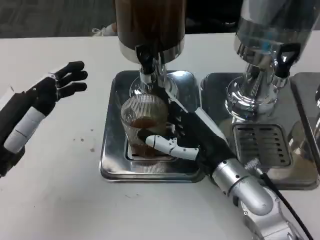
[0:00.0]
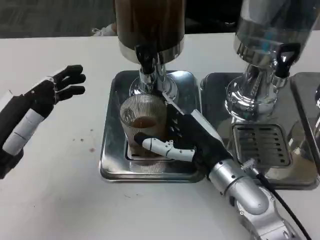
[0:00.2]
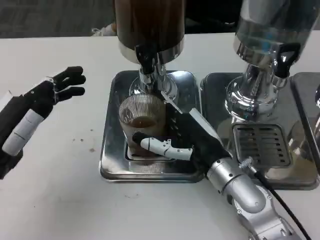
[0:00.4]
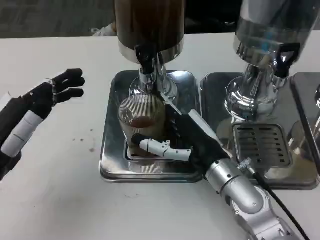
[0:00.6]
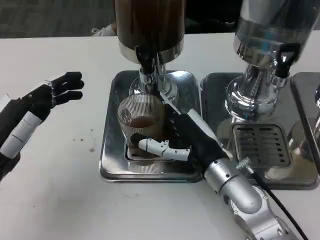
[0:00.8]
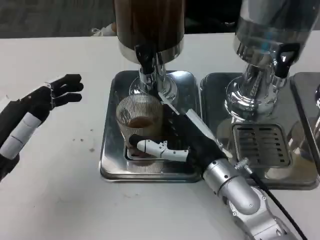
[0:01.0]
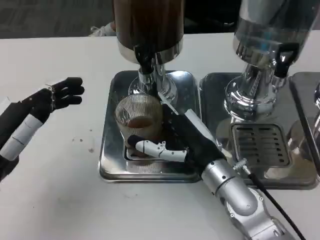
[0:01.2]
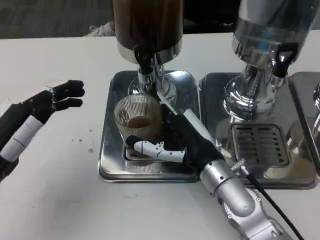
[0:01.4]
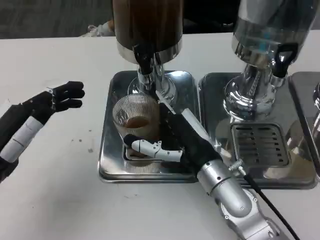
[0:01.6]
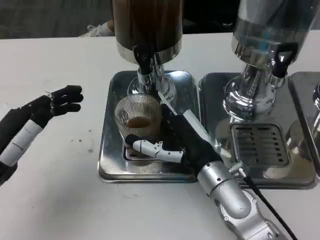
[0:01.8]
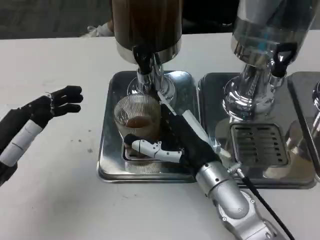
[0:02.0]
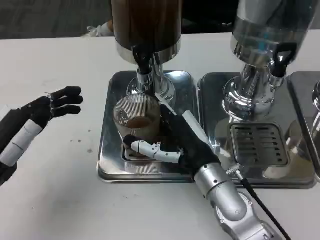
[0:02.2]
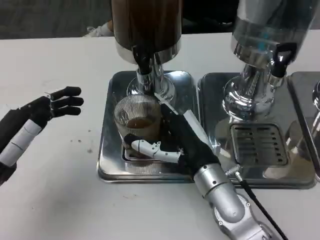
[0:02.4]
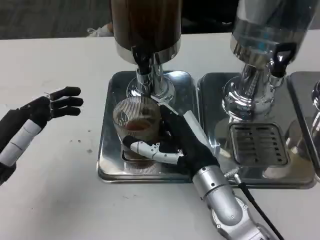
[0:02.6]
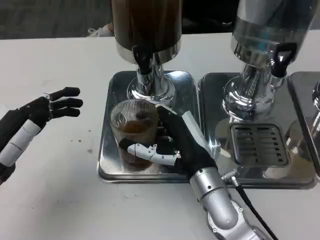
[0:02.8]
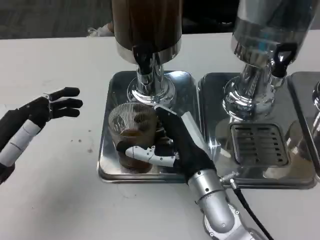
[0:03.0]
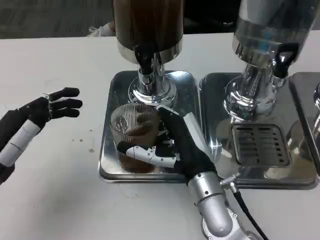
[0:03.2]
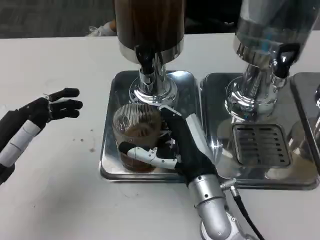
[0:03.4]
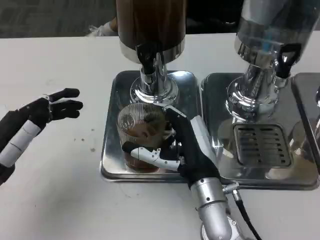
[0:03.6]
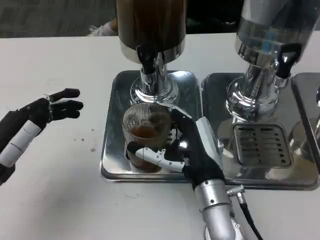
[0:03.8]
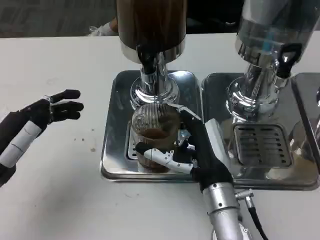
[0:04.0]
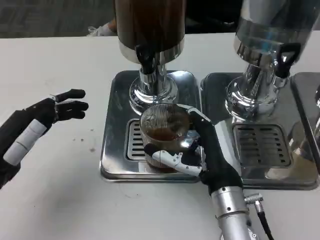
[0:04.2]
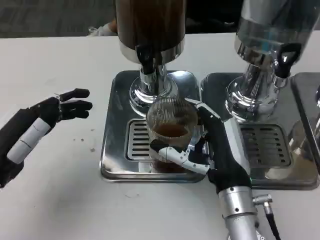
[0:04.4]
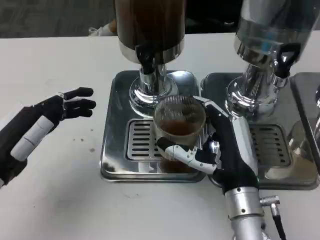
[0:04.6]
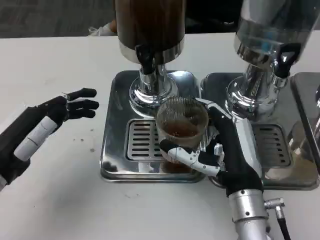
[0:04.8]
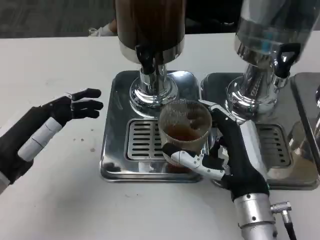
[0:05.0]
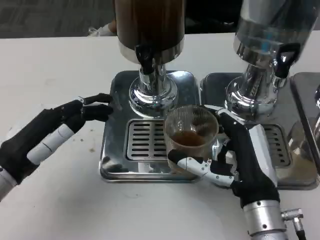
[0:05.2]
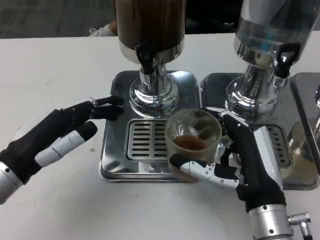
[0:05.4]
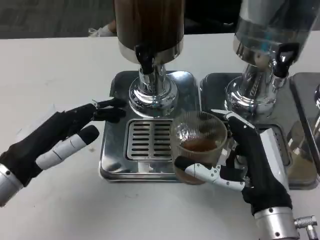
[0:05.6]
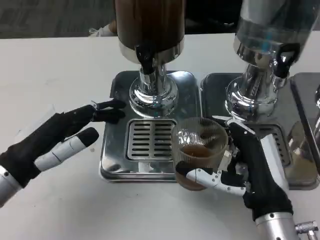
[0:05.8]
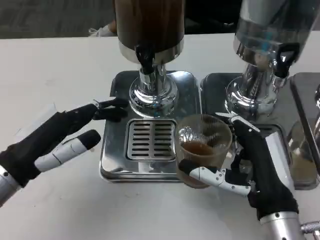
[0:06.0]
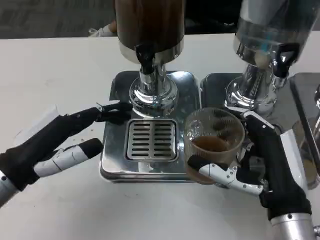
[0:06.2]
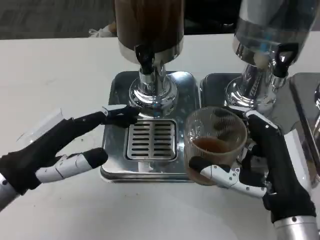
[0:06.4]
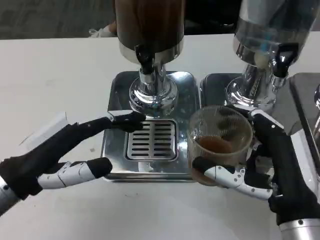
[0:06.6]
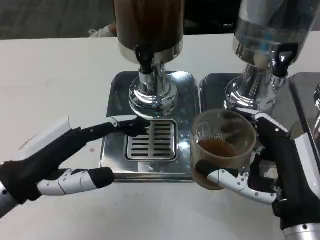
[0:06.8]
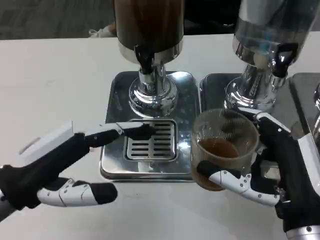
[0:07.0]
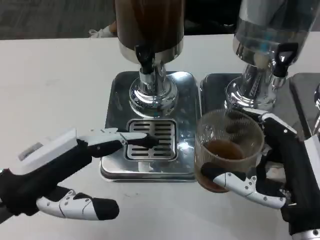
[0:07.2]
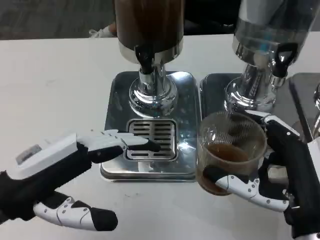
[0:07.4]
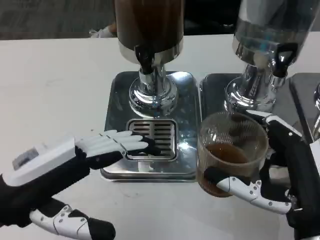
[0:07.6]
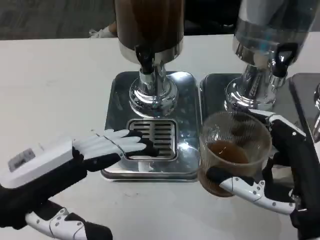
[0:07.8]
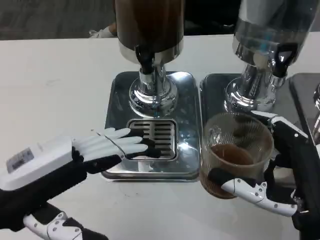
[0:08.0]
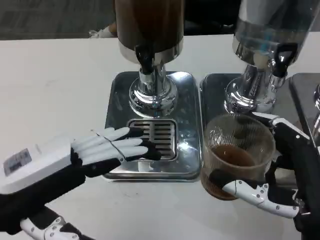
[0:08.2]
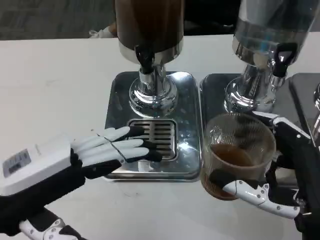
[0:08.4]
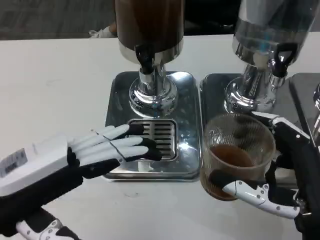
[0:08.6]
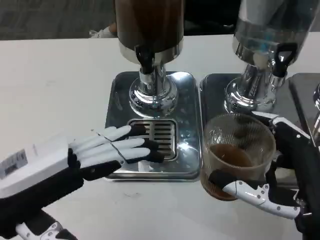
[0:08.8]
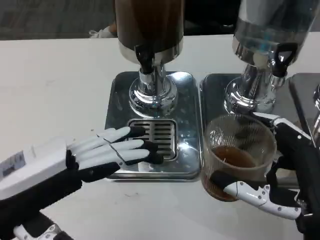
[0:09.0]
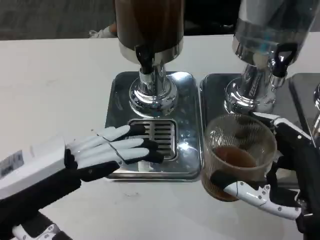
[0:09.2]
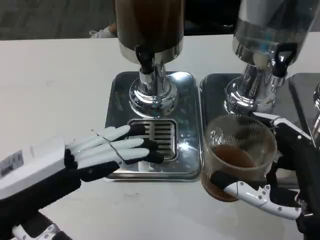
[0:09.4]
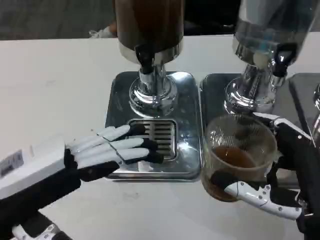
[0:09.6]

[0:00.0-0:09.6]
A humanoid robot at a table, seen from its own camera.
Task of the whole recording: Grasp the cup under the faucet to collect the drink, then remove the cup.
0:01.6 to 0:03.2: The hands stay close to where they were, moving slightly.
0:03.2 to 0:04.8: The right hand shifts by roughly 5 cm.
0:04.8 to 0:06.4: The right hand shifts roughly 5 cm backward.
0:06.4 to 0:08.0: The left hand changes place by about 5 cm.
0:08.0 to 0:09.6: The two hands keep their place.

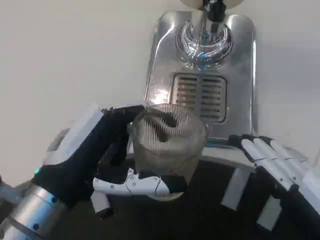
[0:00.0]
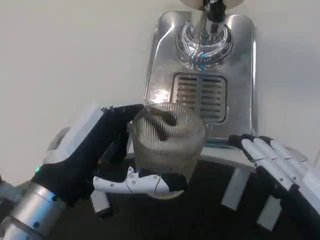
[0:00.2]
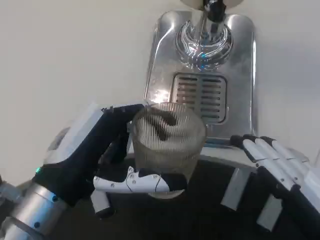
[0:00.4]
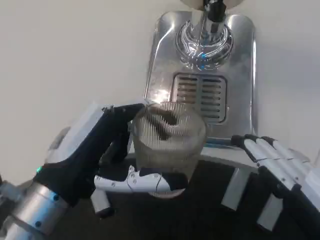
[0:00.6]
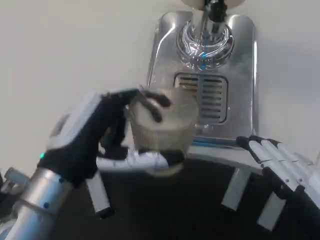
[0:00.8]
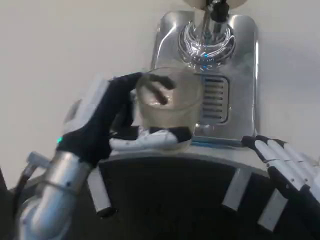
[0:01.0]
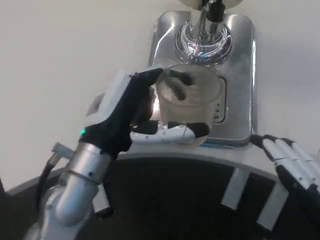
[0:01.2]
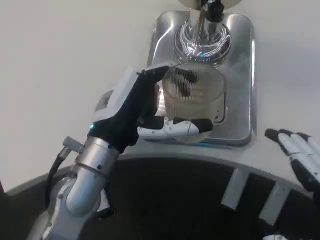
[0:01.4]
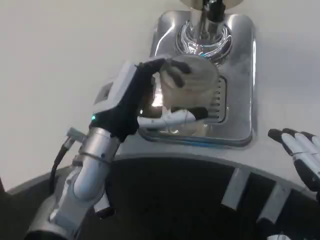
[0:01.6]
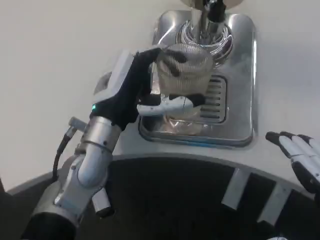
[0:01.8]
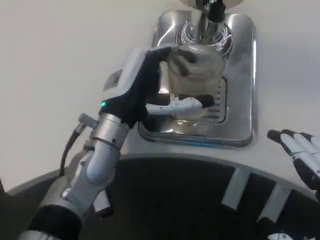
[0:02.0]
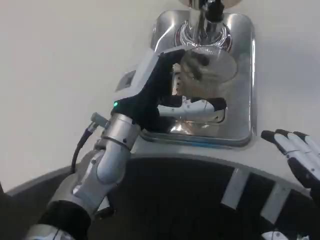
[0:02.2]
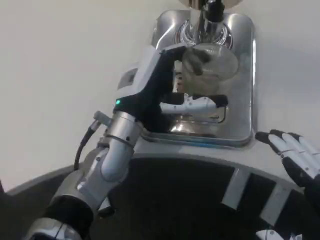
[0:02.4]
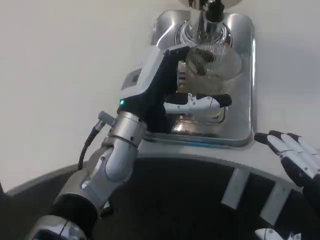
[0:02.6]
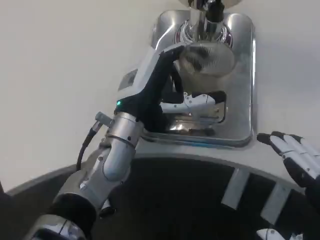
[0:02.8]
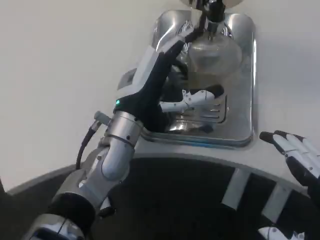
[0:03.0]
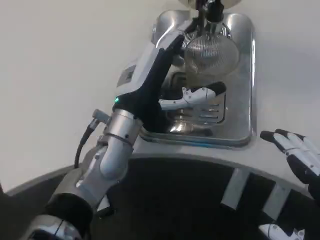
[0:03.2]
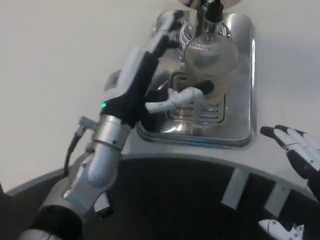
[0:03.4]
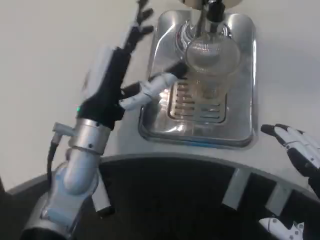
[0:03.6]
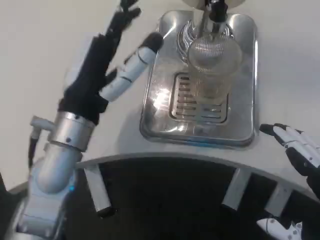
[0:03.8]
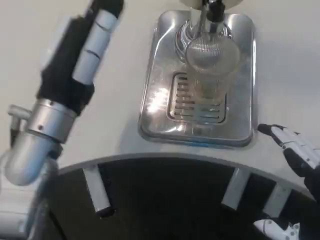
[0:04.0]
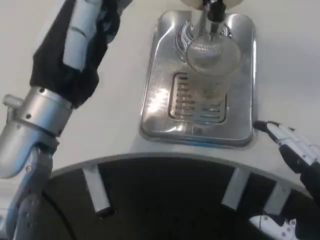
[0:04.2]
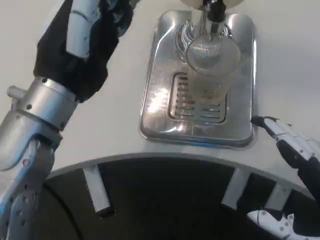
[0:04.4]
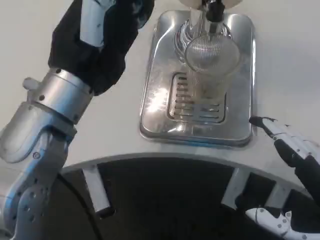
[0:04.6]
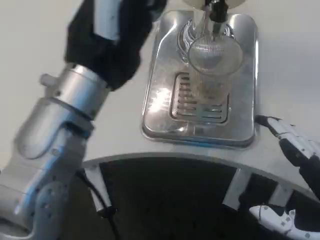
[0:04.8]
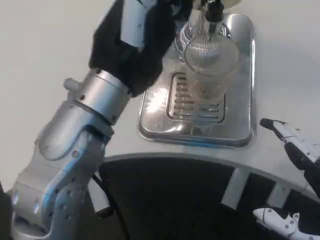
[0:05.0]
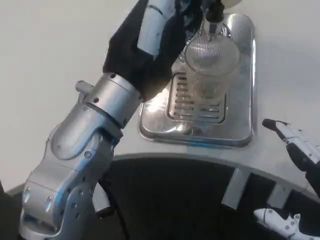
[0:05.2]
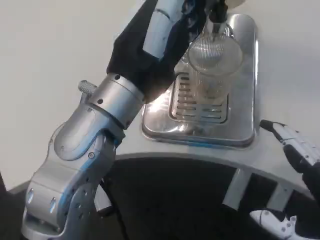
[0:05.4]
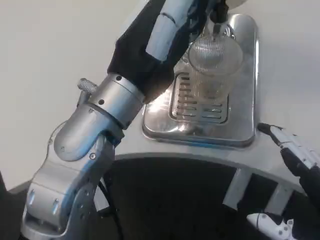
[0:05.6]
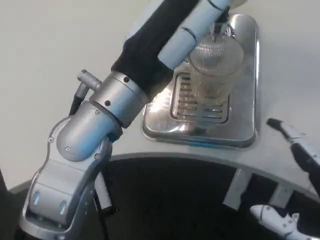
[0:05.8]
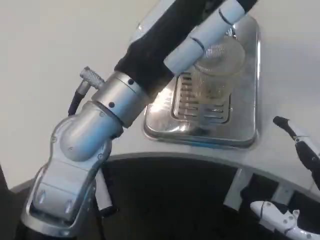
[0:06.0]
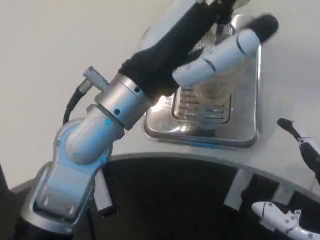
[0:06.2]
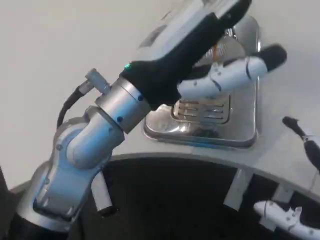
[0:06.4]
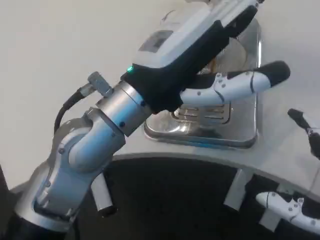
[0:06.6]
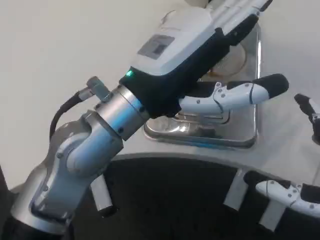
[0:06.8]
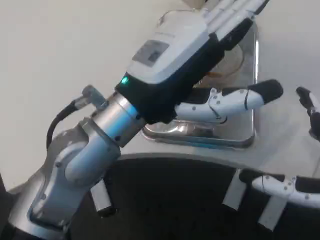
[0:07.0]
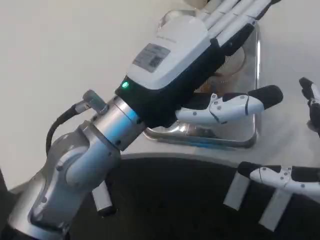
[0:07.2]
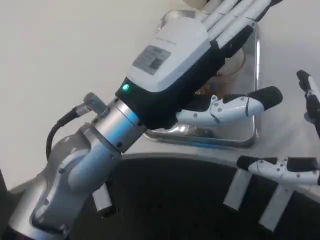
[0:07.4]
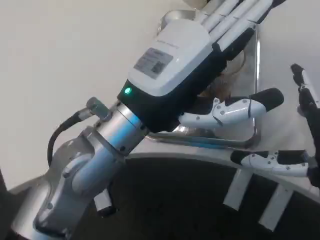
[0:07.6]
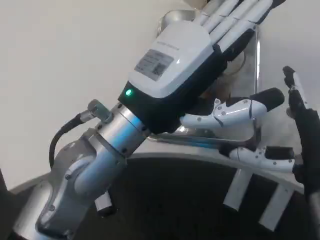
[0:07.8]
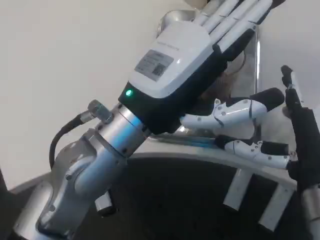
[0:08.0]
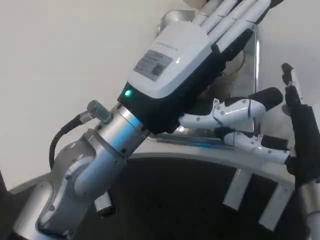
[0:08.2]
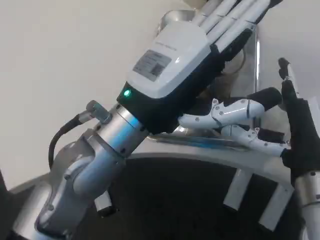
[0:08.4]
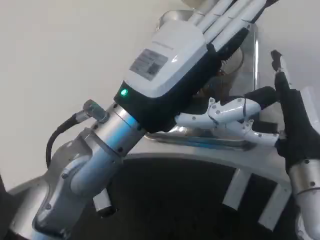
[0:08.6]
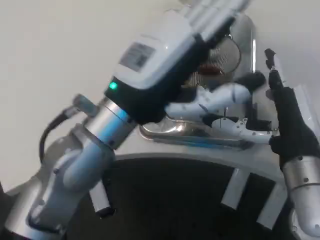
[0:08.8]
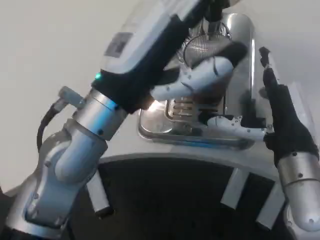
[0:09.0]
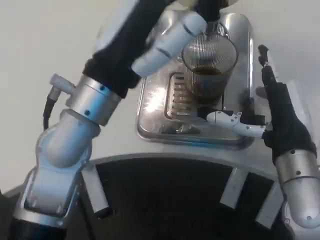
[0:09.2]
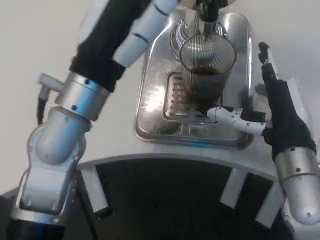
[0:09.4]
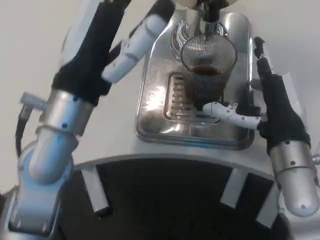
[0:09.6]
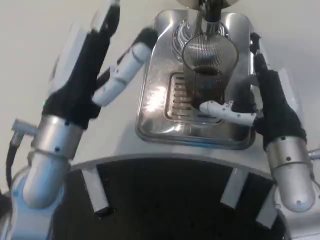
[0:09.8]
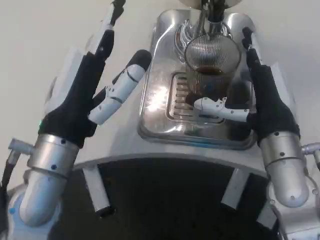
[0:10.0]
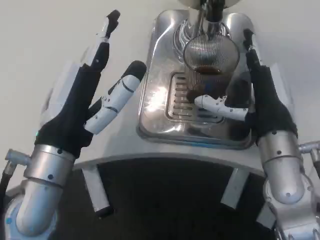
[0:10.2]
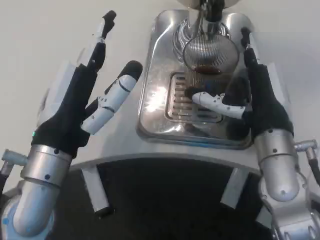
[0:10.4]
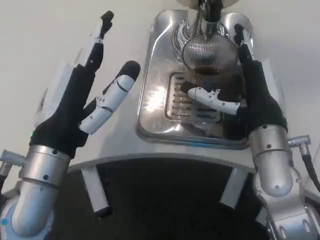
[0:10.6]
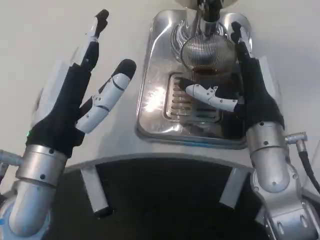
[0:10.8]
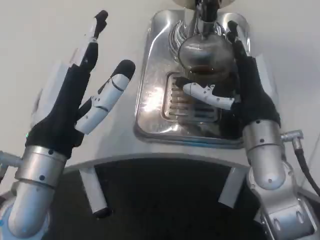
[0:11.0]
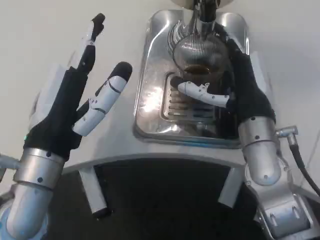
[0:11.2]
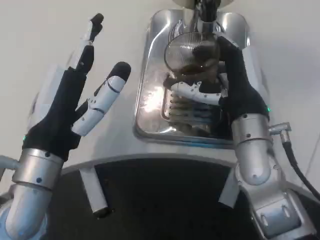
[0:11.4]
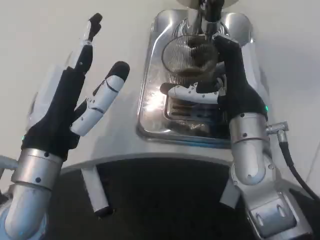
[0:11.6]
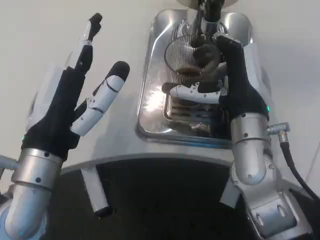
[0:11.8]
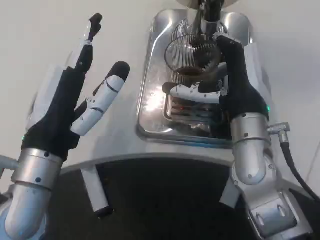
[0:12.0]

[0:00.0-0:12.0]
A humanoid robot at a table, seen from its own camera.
Task of the whole recording: Grasp the cup under the faucet to collect the drink, then remove the cup.
0:00.0 to 0:01.6: The left hand goes approximately 15 cm forward and to the right.
0:01.6 to 0:03.0: The hands move only a little.
0:03.0 to 0:04.4: The left hand moves upward, backward and to the left, about 15 cm.
0:04.4 to 0:06.0: The left hand heads to the right, covering some 5 cm.
0:06.0 to 0:07.6: The right hand goes about 10 cm forward.
0:07.6 to 0:09.0: The right hand is displaced forward by approximately 5 cm.
0:09.0 to 0:10.4: The left hand shifts some 5 cm downward.

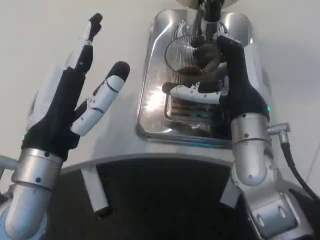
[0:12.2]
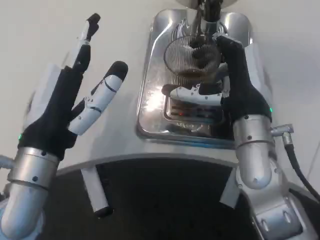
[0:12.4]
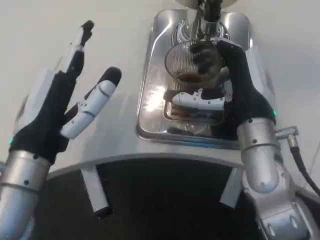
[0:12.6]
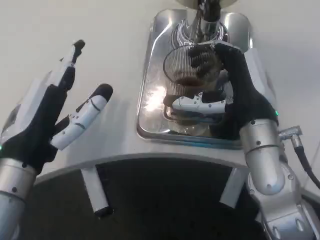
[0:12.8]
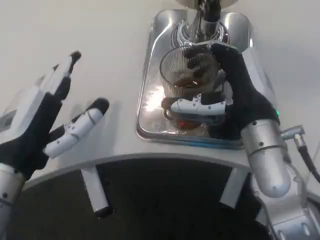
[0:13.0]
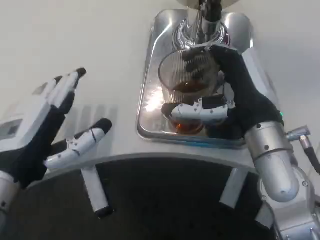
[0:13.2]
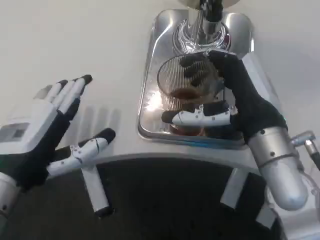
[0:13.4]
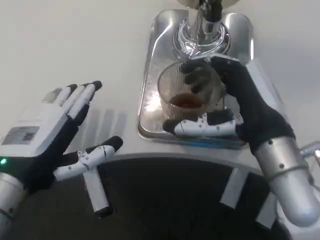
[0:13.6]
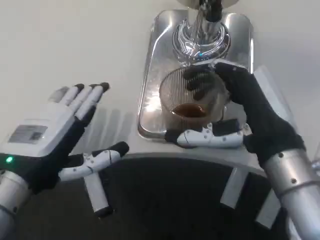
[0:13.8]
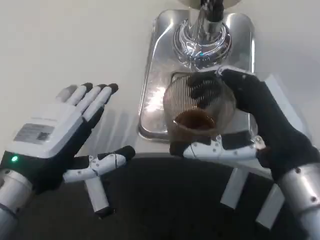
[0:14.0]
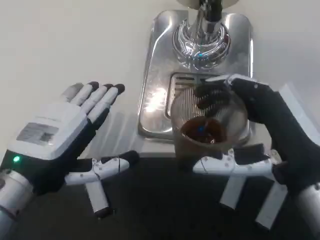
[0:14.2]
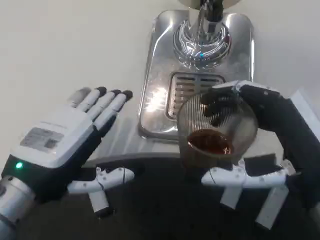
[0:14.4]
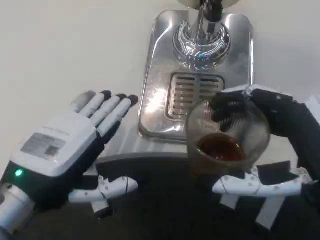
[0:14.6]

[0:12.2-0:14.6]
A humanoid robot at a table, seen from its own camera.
Task of the whole recording: Grasp the cup under the faucet to collect the drink, then remove the cup.
0:12.2 to 0:13.4: The left hand heads to the left, covering roughly 5 cm; the right hand changes place by about 5 cm.
0:13.4 to 0:14.6: The right hand travels backward by roughly 10 cm.
